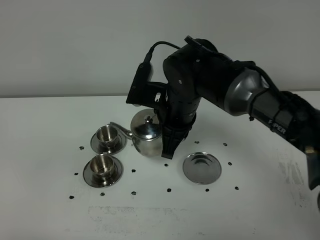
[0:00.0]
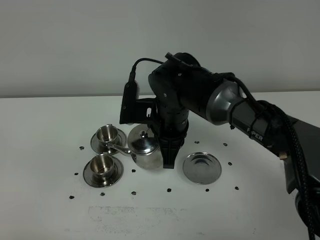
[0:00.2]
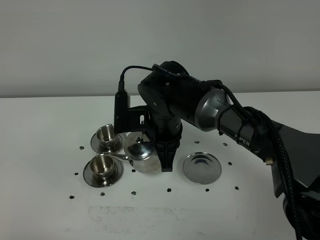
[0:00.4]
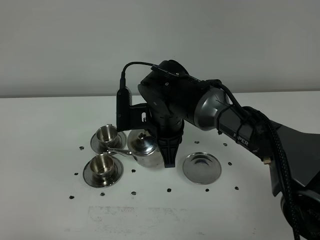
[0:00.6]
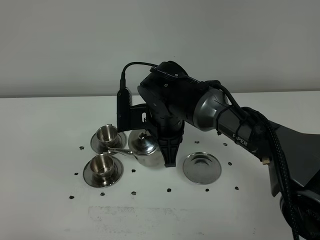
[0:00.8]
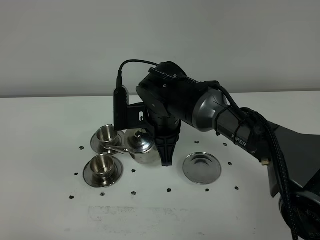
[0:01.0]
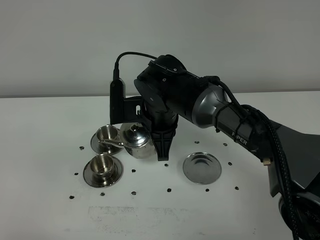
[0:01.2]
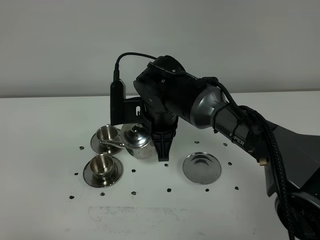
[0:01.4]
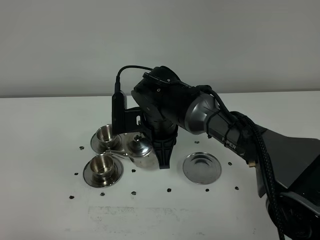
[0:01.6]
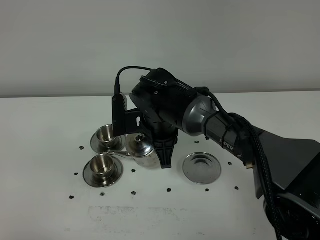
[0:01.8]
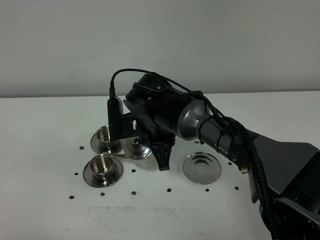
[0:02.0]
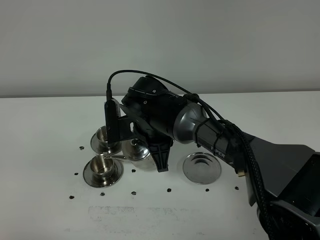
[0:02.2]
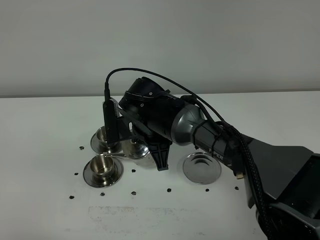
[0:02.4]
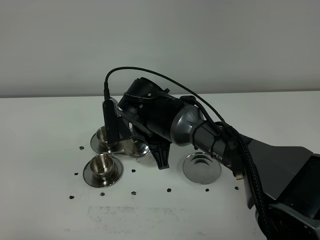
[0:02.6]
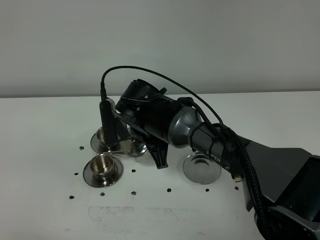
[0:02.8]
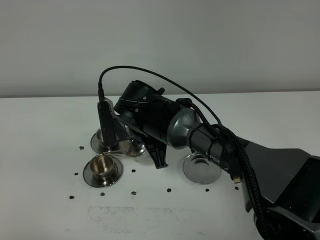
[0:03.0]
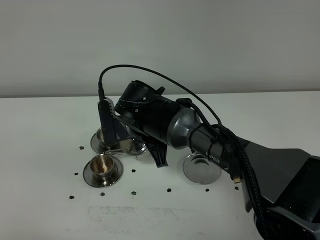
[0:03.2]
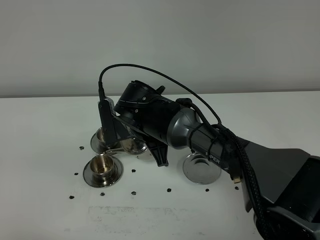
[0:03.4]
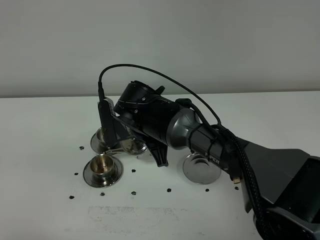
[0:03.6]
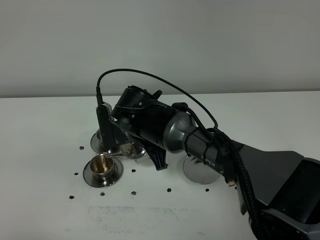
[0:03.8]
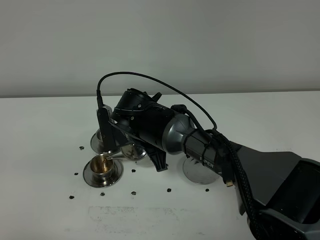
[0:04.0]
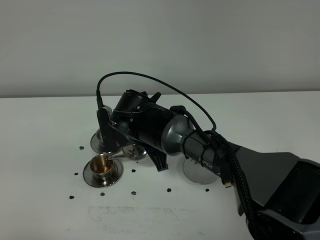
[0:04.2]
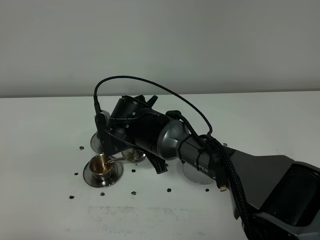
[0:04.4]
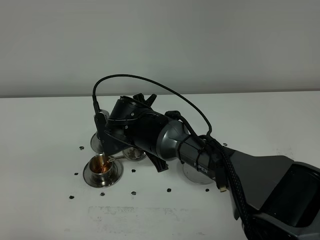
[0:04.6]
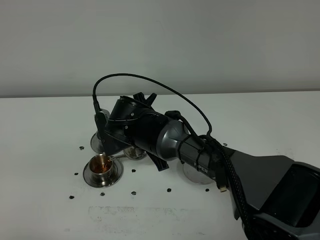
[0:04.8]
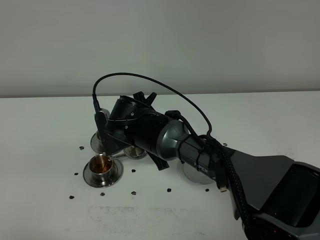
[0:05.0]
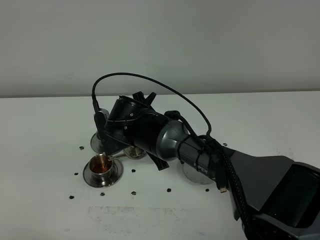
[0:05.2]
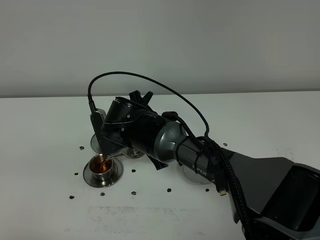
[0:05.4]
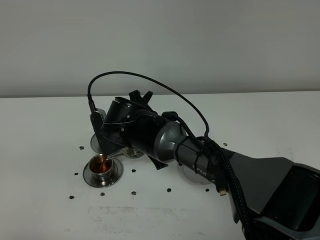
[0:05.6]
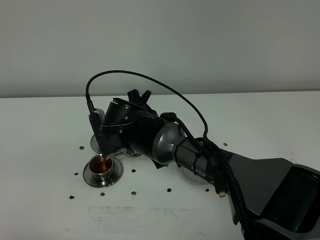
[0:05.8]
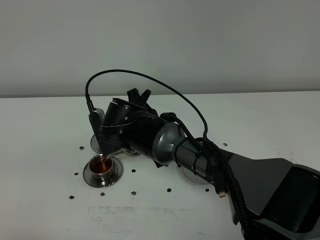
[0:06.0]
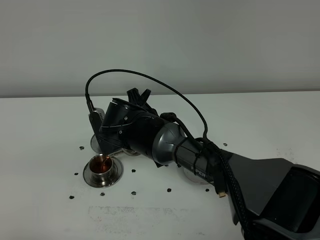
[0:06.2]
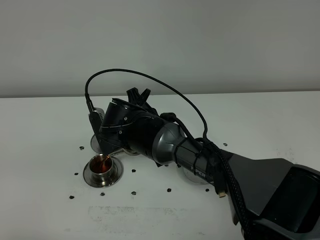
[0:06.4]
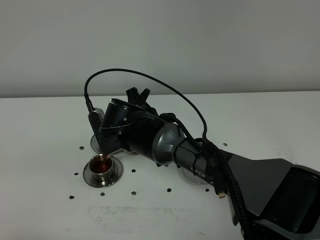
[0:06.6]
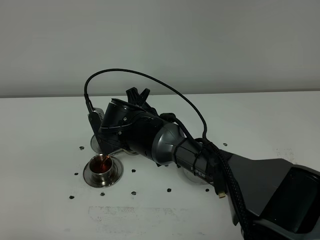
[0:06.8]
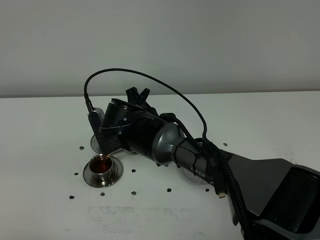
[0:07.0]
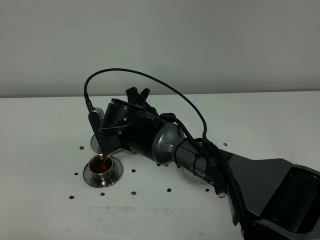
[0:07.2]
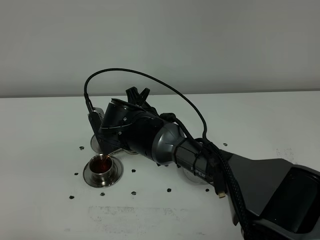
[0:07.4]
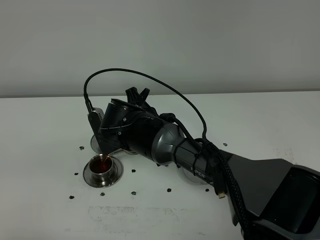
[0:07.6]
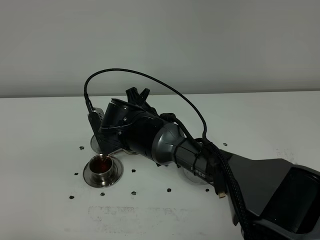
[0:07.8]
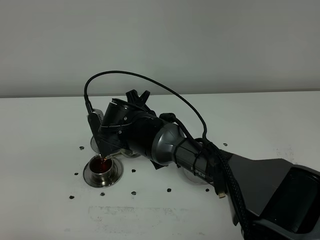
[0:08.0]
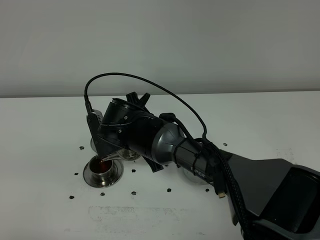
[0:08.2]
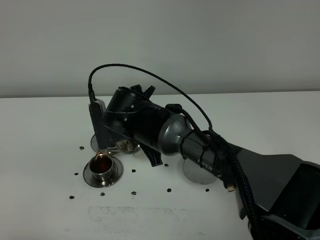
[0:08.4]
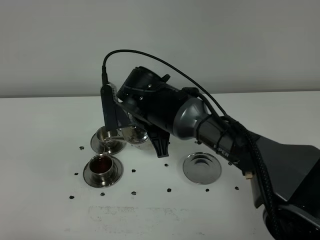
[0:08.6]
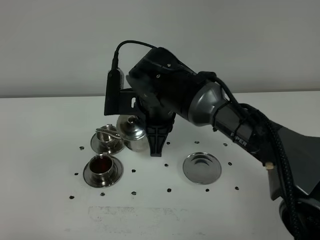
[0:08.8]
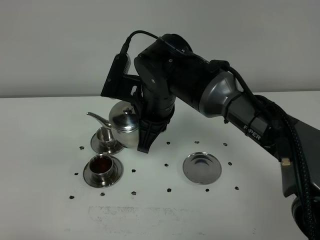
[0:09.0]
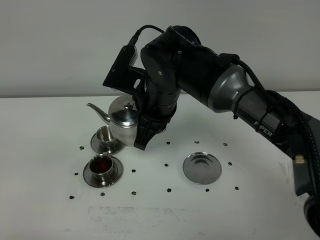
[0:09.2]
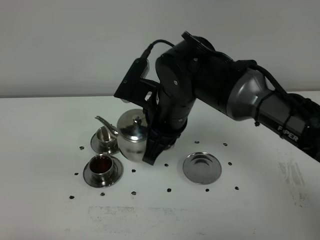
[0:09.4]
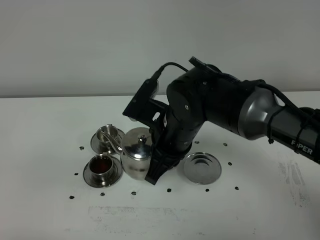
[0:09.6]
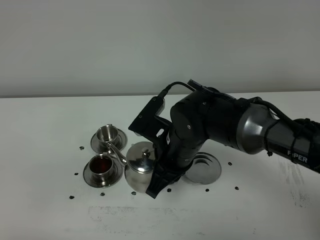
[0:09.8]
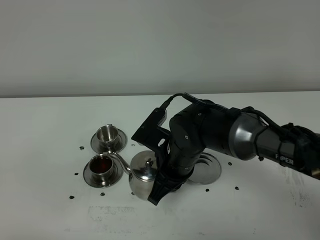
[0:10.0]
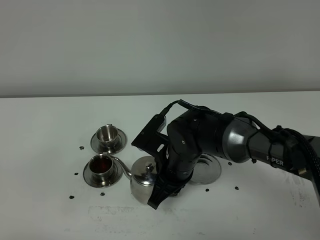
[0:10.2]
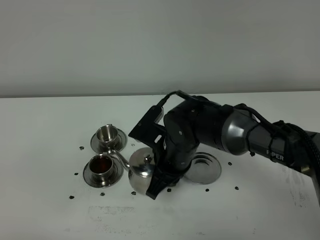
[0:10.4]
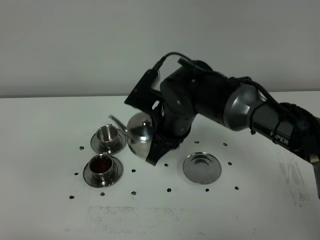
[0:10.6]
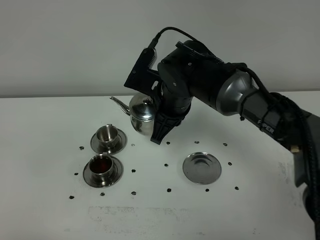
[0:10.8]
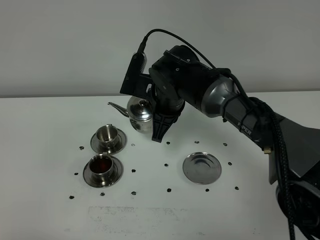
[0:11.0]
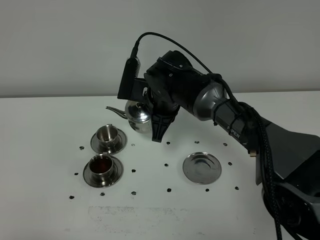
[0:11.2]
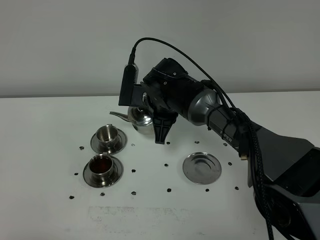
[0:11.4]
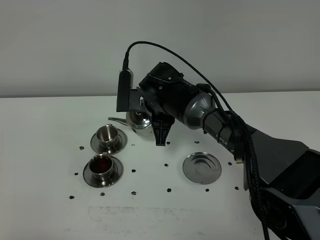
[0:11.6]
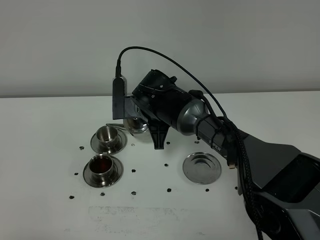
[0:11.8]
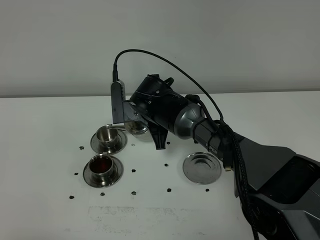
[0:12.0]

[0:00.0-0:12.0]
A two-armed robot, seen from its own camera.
Task of the whole recording: grasp the stainless steel teapot and pour the tea into the two stainless steel teacups one by one, put the stainless steel teapot back in its original place.
0:00.0 to 0:01.6: The right gripper shifts by about 5 cm.
0:01.6 to 0:04.4: There are only small adjustments of the grippers.
0:04.4 to 0:06.0: There are only small adjustments of the grippers.
0:06.0 to 0:07.6: Both grippers stay put.
0:07.6 to 0:09.0: The right gripper travels upward by some 10 cm.
0:09.0 to 0:10.4: The right gripper moves downward, some 10 cm.
0:10.4 to 0:12.0: The right gripper goes about 10 cm forward.

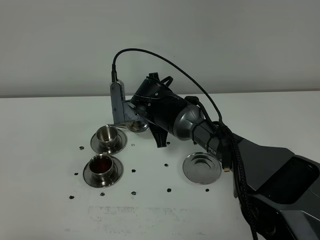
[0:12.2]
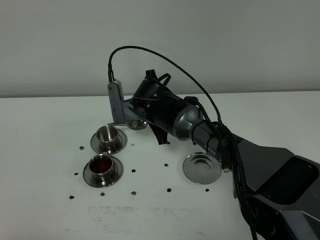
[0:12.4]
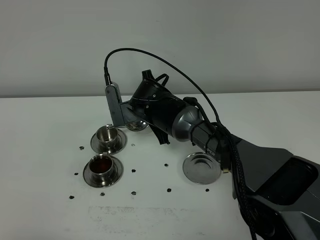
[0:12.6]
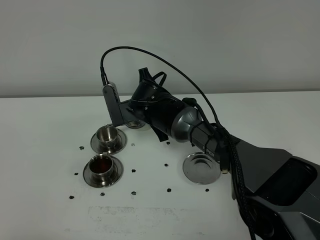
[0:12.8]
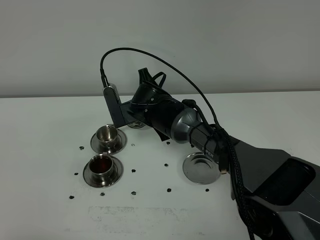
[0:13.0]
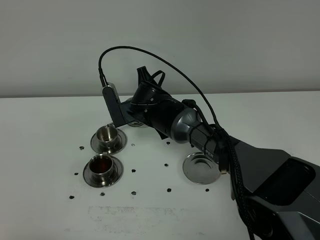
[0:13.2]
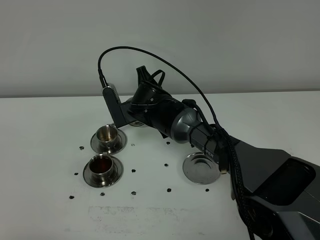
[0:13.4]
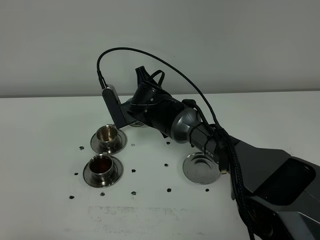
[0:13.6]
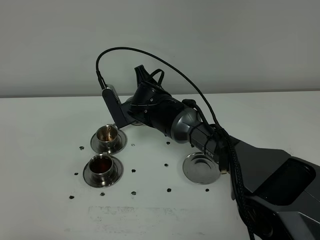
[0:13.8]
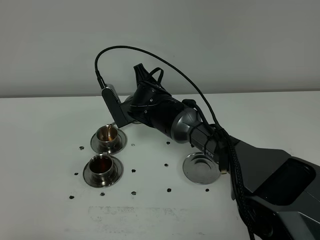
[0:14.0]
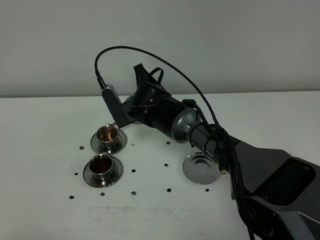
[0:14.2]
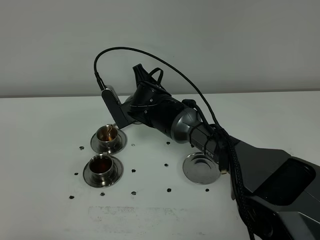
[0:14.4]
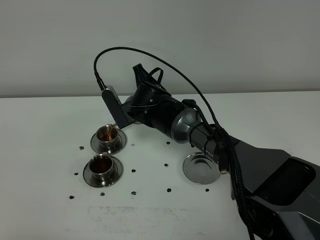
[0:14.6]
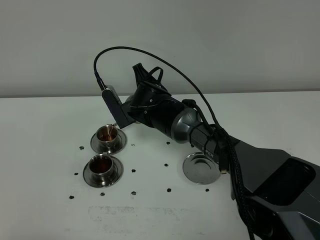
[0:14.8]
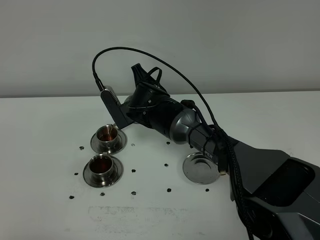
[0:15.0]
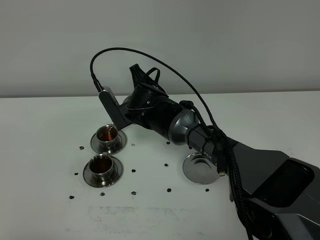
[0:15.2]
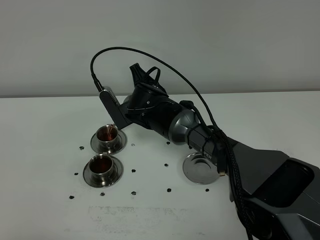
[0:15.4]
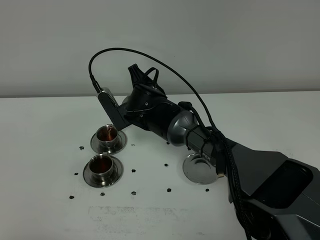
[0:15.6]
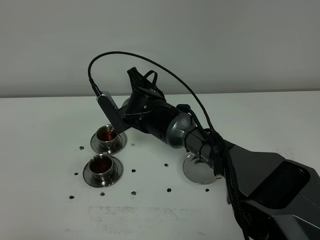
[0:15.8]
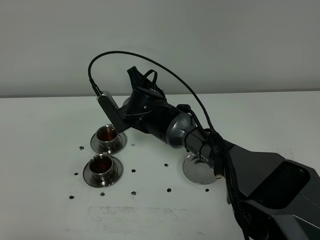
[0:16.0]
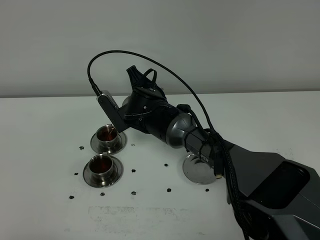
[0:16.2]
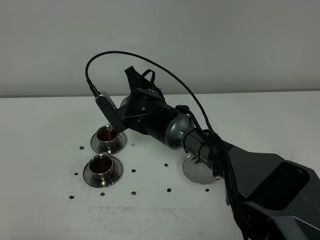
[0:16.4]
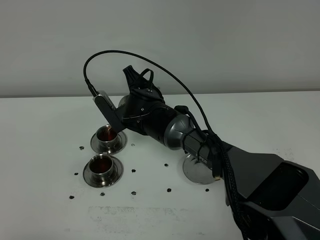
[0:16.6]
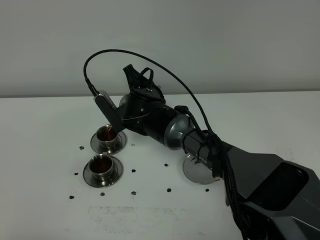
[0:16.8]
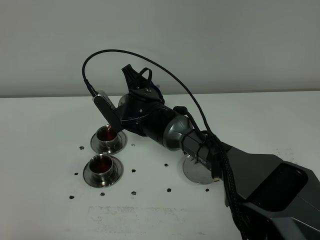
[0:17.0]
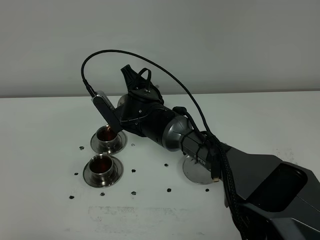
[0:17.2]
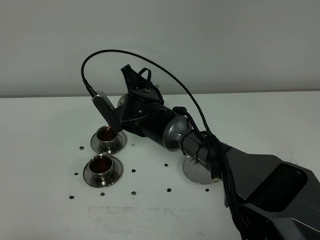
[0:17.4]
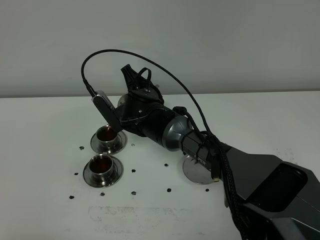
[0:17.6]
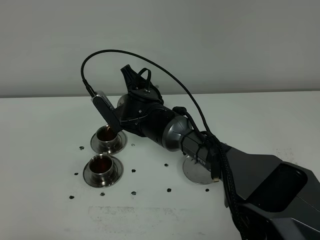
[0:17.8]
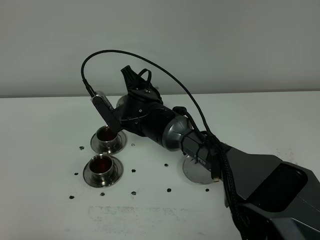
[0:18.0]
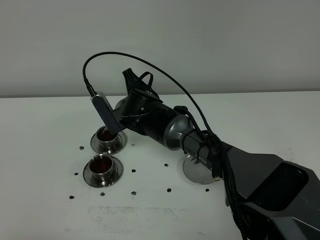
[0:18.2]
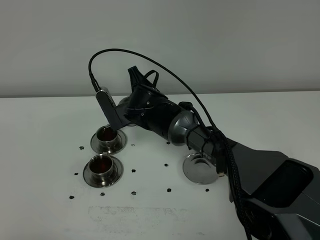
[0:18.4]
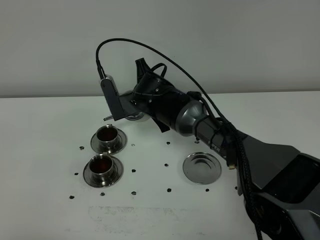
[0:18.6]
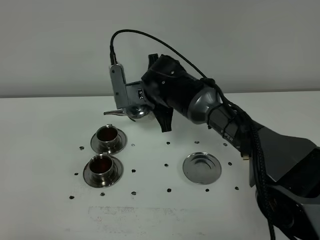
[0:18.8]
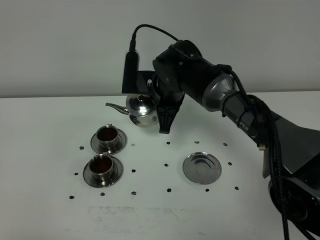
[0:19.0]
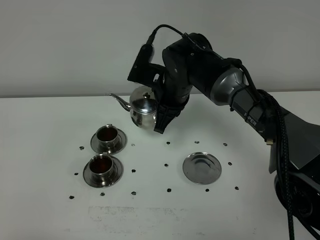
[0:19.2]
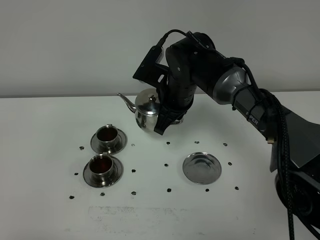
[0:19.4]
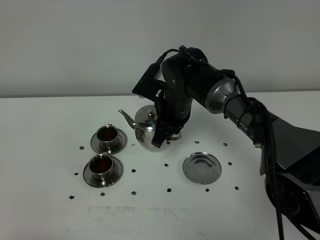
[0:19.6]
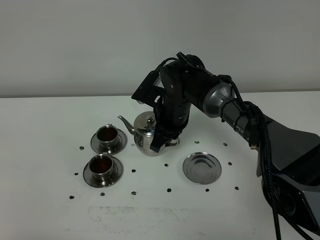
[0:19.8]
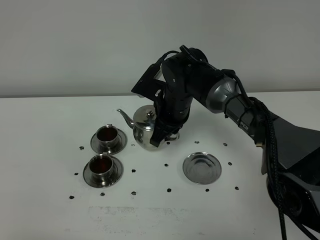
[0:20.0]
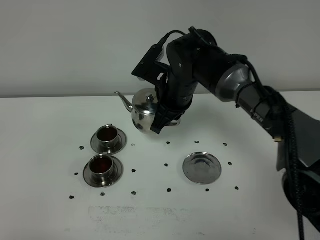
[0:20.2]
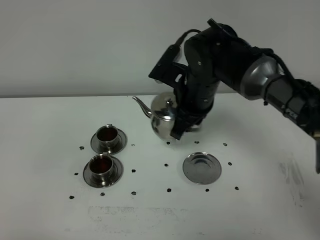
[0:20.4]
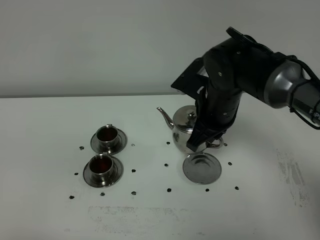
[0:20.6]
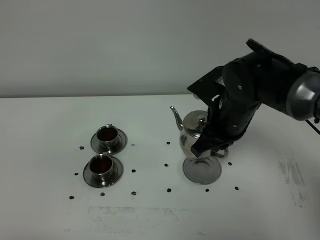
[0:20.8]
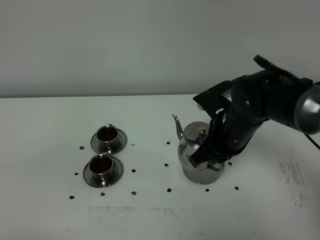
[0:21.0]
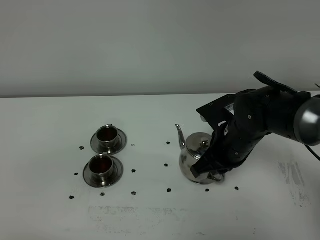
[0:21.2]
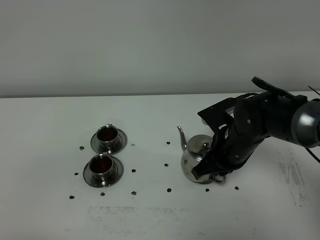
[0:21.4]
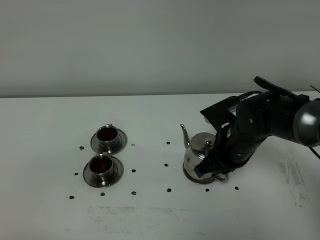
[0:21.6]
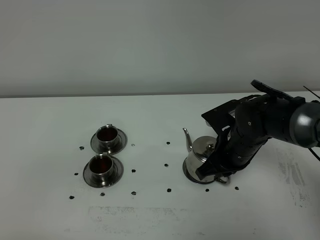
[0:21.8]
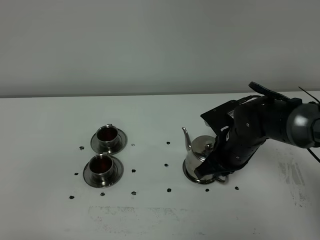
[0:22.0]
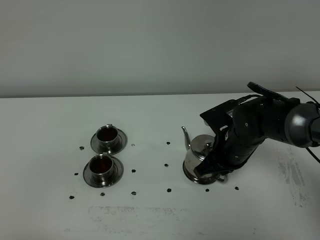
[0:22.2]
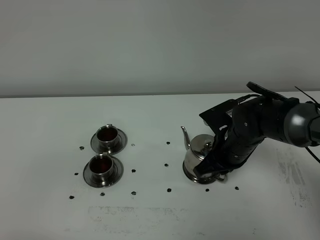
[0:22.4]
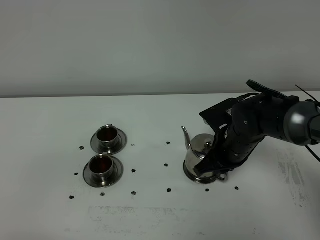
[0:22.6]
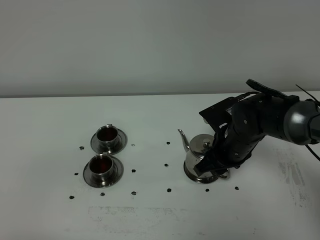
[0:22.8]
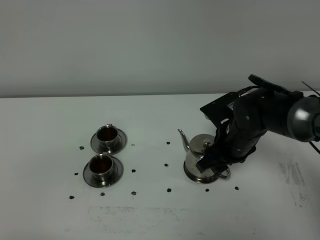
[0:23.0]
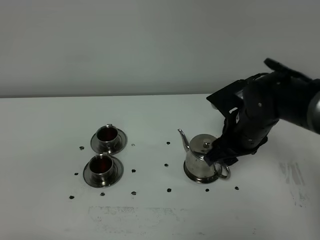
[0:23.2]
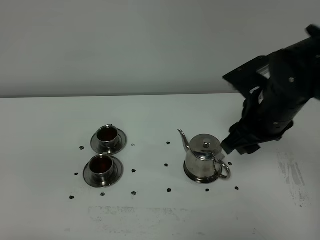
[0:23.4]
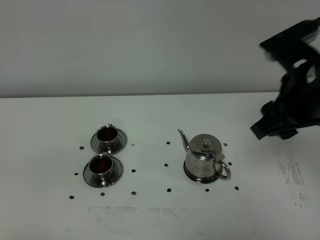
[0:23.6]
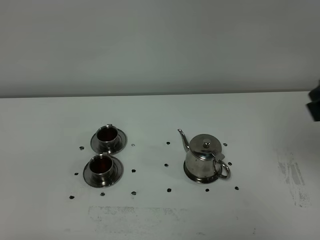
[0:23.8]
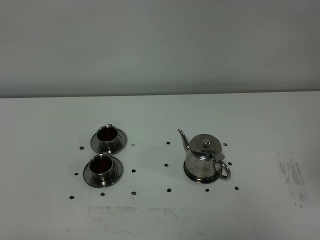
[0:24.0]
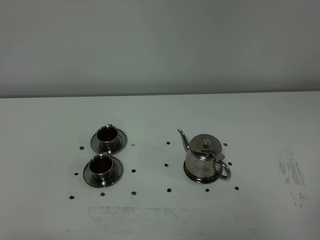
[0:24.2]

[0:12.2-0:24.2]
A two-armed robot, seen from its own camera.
Task of the whole recording: grasp the stainless steel teapot and pour the tea into the two stainless steel teacups one by one, put the stainless steel teapot back in its original place.
Step, 0:12.2 to 0:18.4: Pour tea into the teacup with the right gripper.
0:12.2 to 0:13.8: The grippers make only small movements.
0:13.8 to 0:18.2: There are only small adjustments of the grippers.
0:18.2 to 0:19.8: The right gripper is displaced to the right by some 5 cm.
0:19.8 to 0:21.2: The right gripper moves to the right and backward, about 15 cm.
0:21.2 to 0:22.6: There are only small adjustments of the grippers.
0:22.6 to 0:24.2: The right gripper travels backward, upward and to the right by about 35 cm, and opens its fingers.
